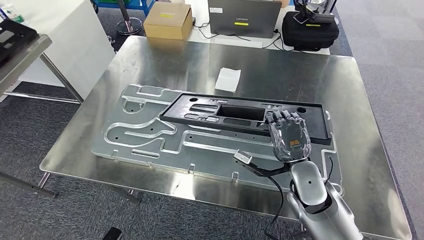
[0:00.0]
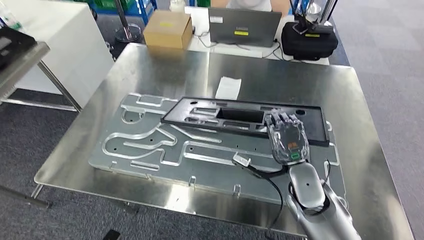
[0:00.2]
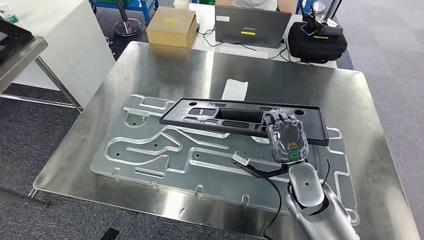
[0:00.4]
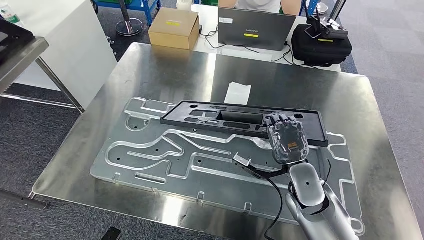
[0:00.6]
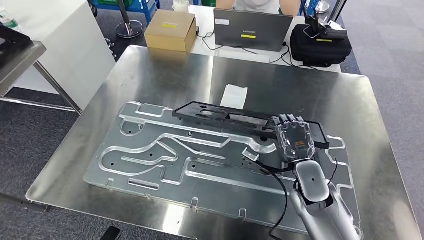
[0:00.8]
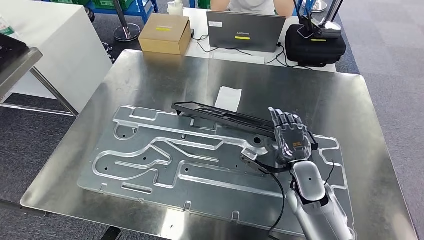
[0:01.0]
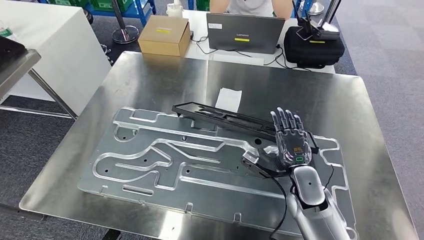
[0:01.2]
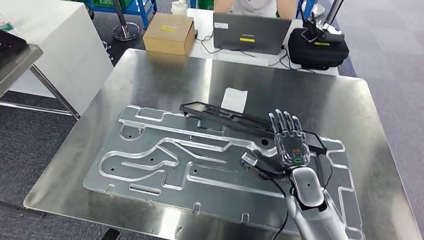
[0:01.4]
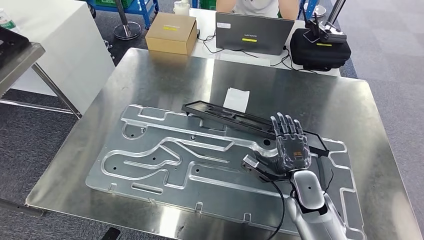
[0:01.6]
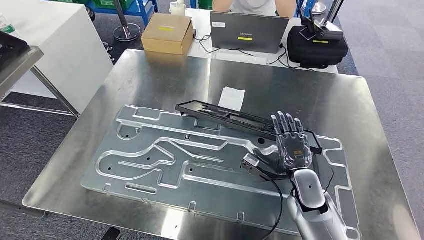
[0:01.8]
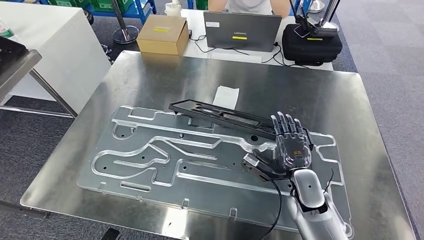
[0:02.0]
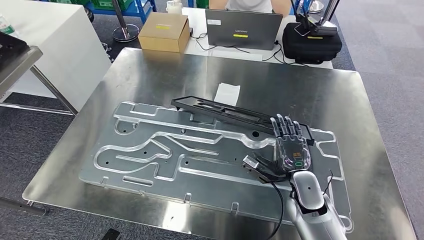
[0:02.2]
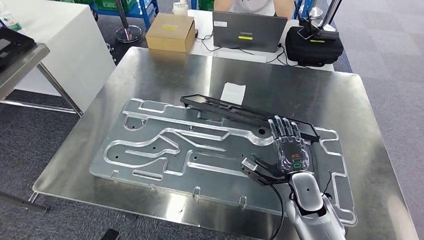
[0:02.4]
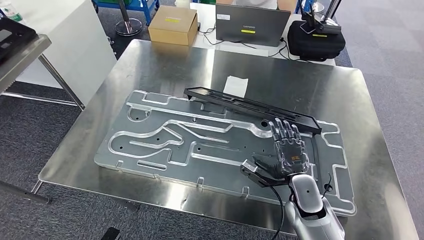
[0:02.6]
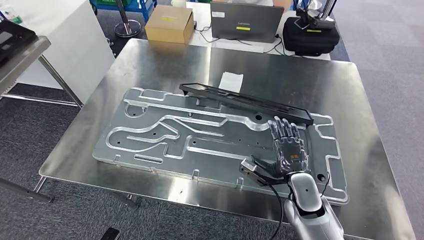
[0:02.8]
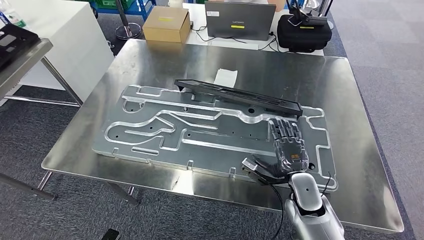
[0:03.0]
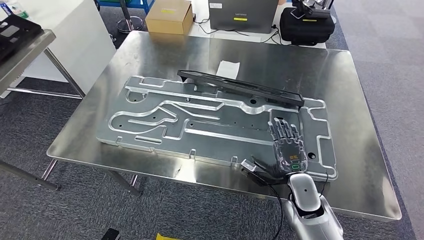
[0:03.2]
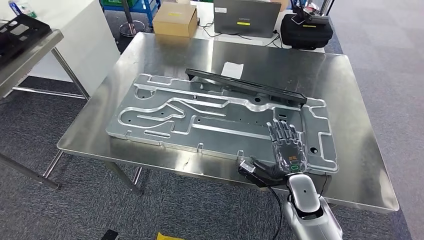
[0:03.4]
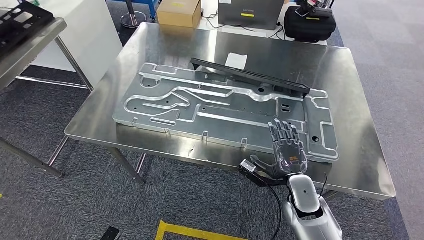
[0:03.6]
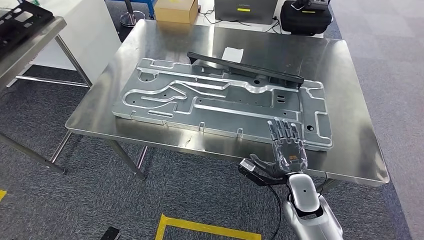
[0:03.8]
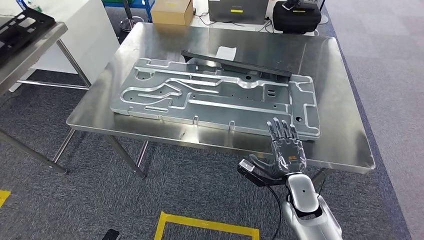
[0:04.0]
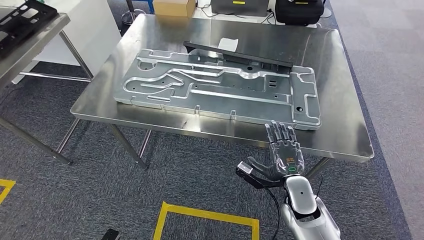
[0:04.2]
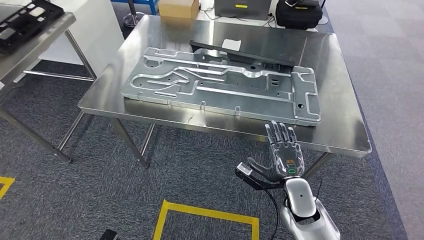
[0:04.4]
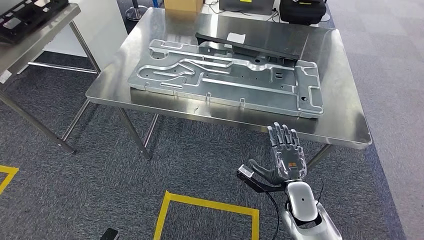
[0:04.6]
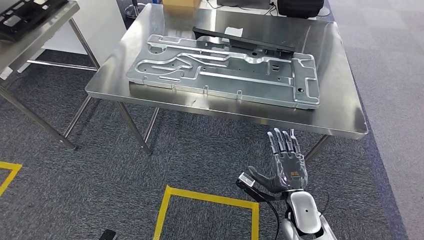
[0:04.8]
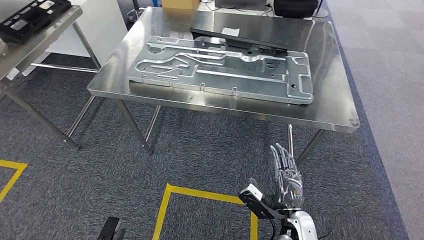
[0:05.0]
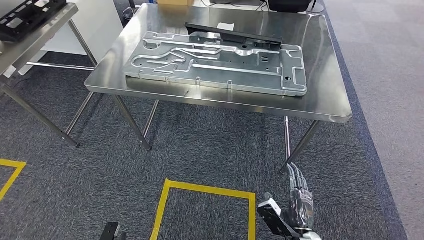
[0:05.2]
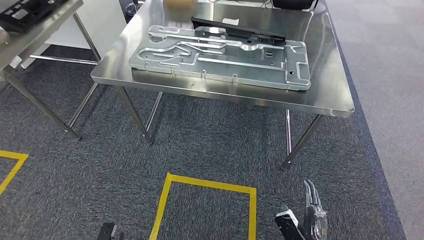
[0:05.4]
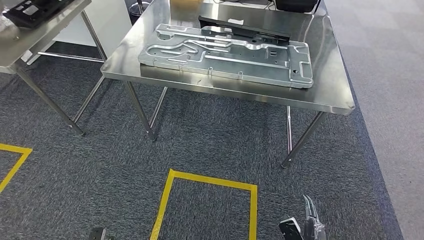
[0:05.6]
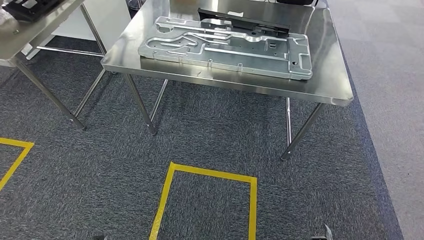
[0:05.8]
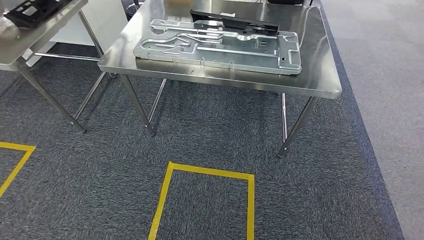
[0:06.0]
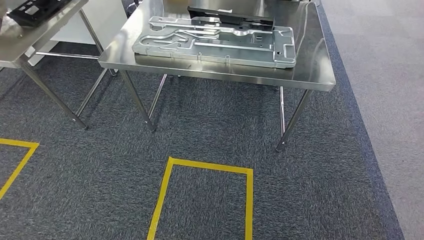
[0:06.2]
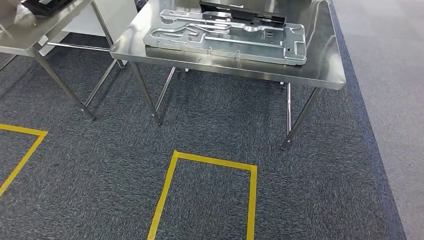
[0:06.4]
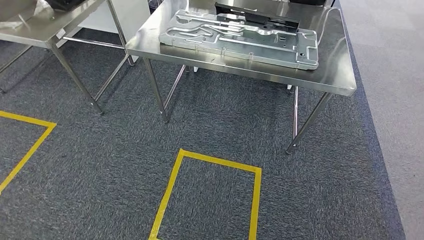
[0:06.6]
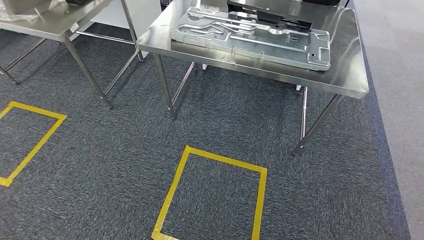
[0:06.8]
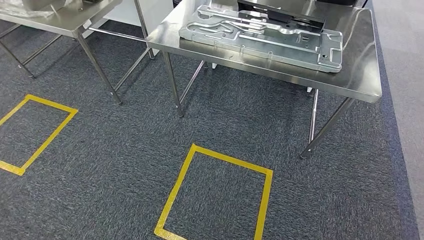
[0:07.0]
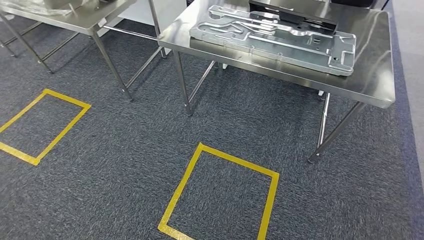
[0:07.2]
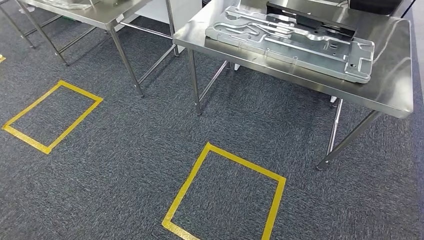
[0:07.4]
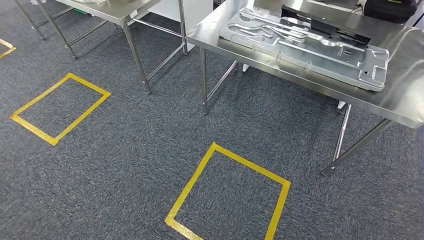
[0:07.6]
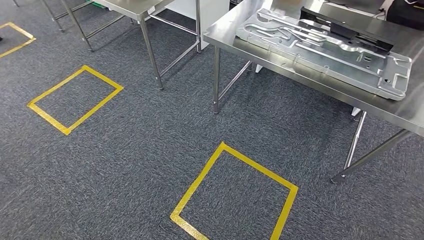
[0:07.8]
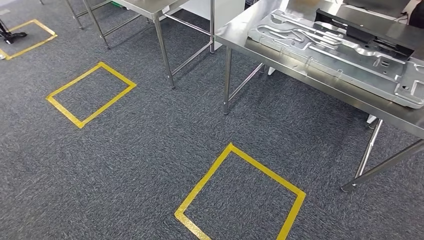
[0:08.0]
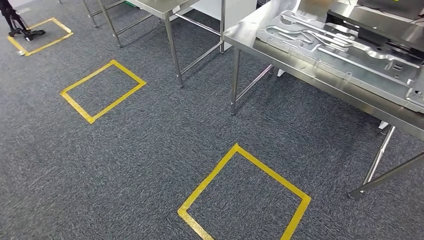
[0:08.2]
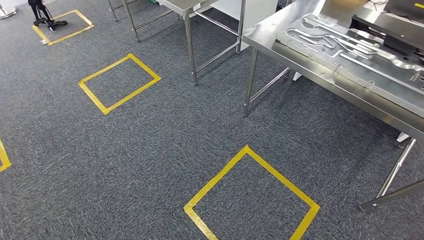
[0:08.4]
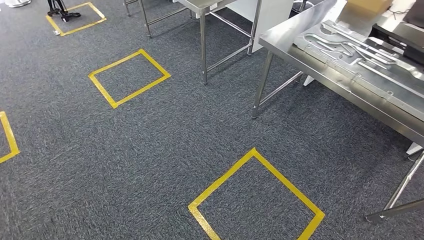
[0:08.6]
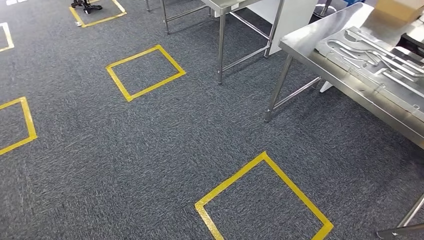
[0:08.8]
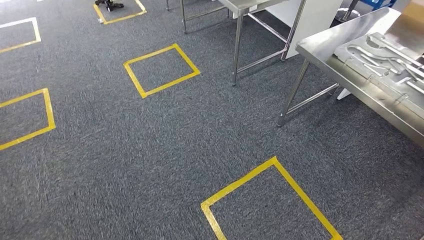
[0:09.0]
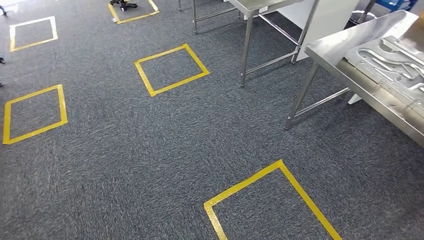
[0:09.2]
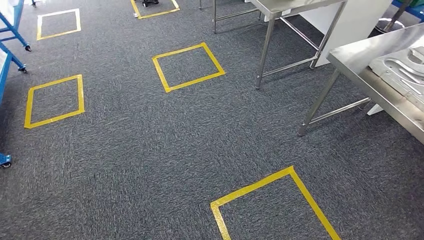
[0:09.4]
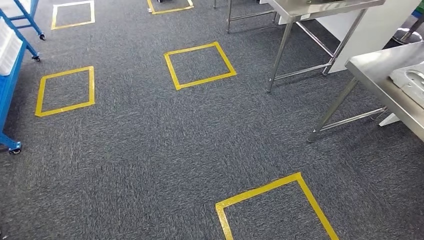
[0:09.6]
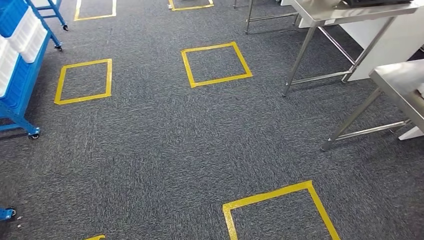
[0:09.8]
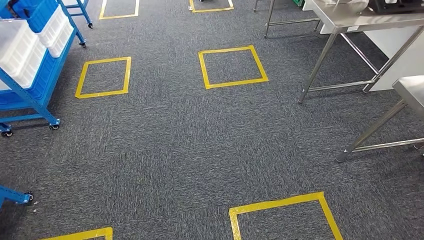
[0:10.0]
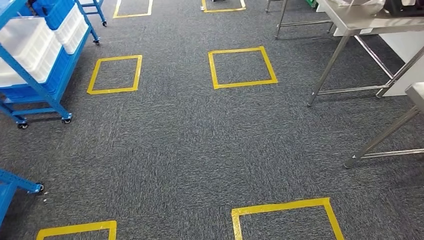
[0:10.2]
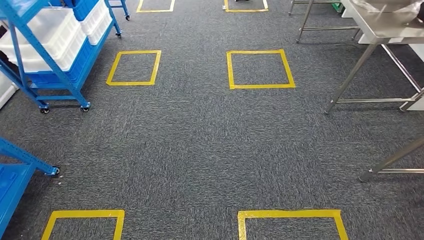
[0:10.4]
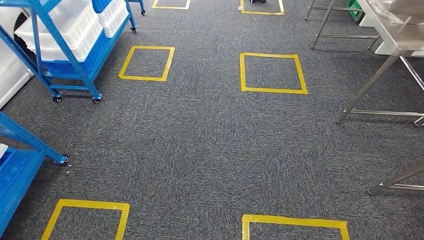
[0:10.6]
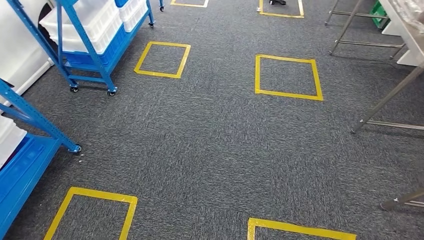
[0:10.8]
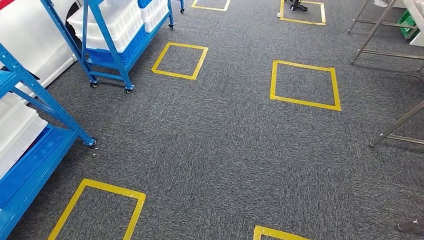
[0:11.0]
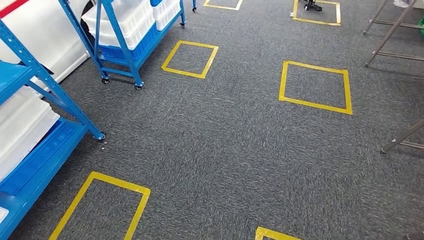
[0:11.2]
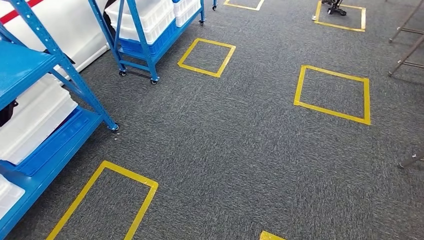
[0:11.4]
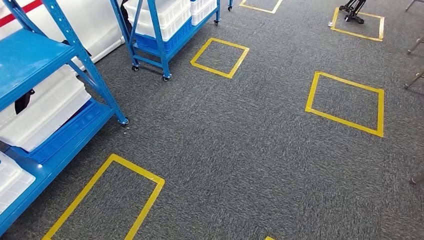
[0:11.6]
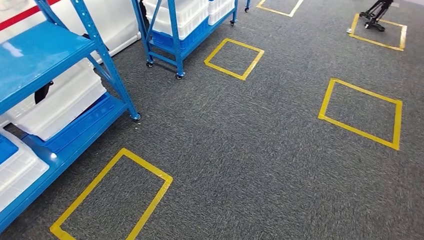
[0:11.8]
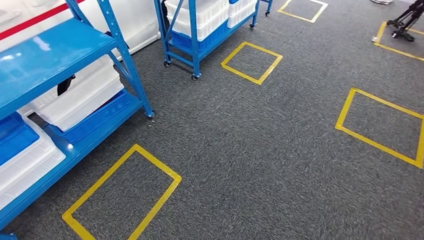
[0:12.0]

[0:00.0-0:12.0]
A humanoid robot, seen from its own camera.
Step, 0:00.0 to 0:05.4: Insert the large material into the corresponding hole on the workbench.

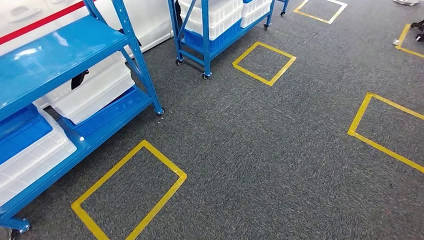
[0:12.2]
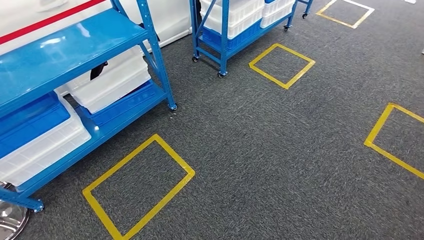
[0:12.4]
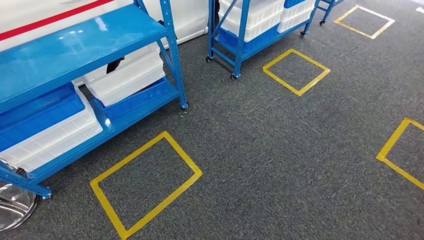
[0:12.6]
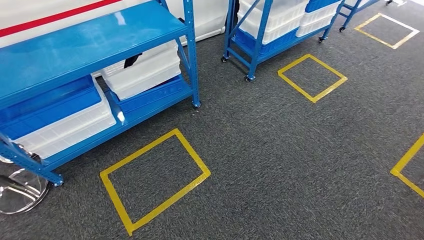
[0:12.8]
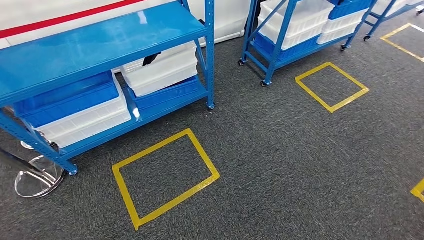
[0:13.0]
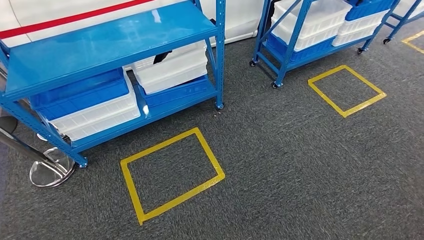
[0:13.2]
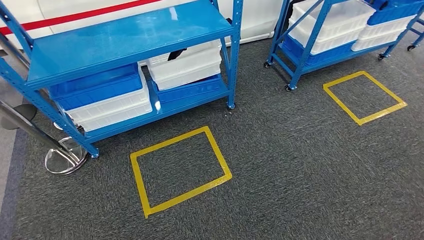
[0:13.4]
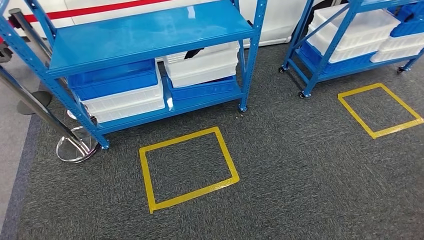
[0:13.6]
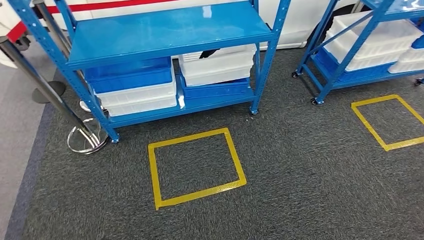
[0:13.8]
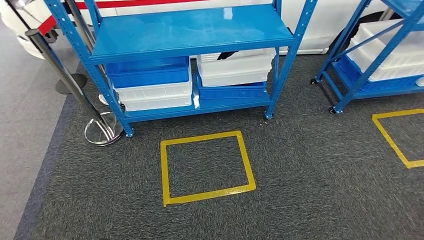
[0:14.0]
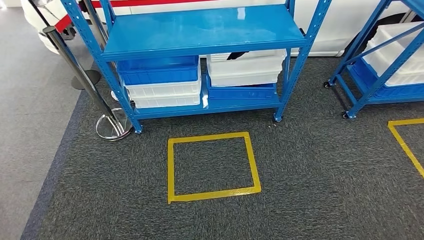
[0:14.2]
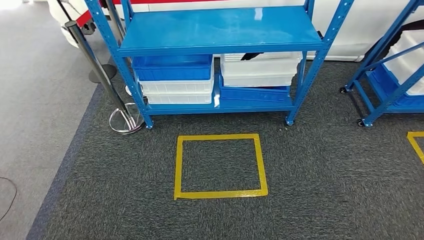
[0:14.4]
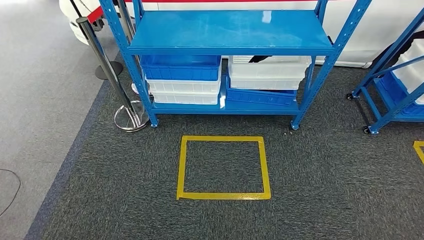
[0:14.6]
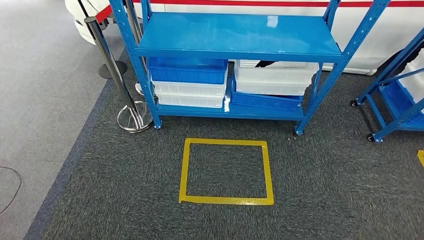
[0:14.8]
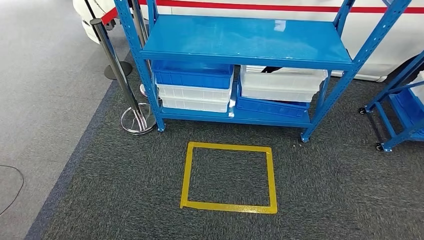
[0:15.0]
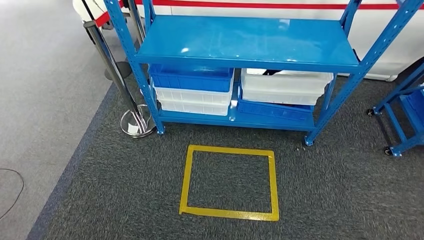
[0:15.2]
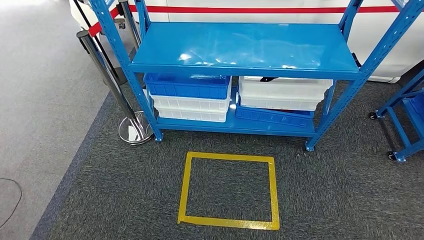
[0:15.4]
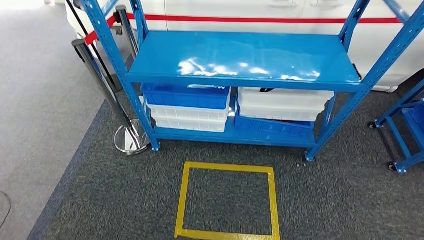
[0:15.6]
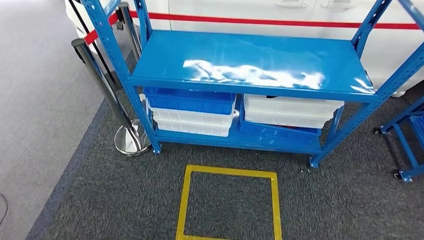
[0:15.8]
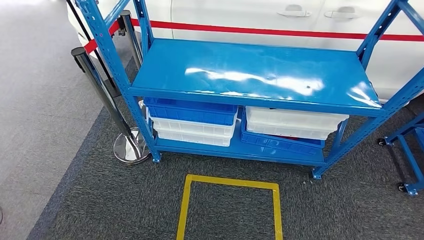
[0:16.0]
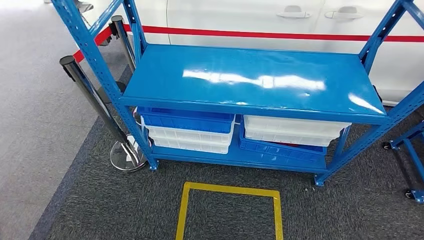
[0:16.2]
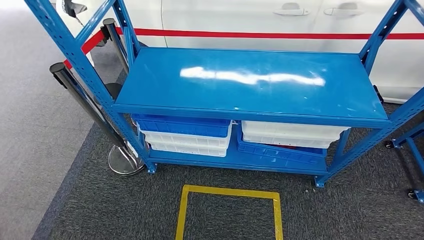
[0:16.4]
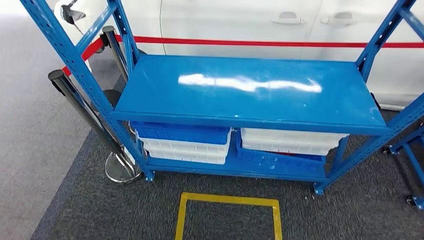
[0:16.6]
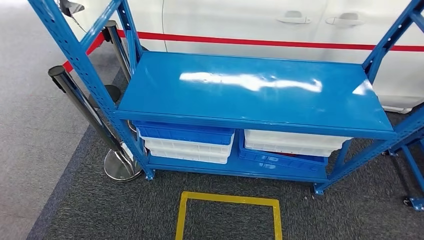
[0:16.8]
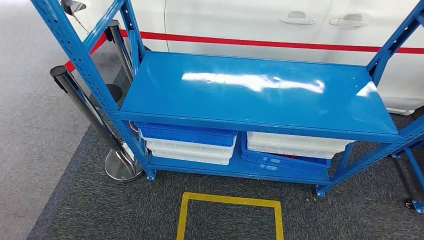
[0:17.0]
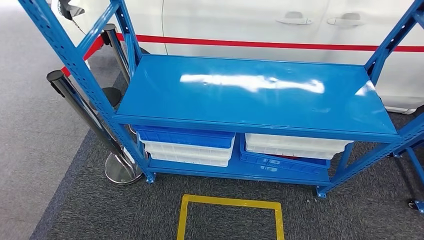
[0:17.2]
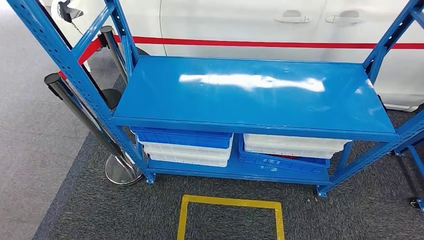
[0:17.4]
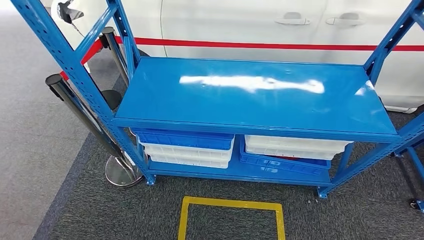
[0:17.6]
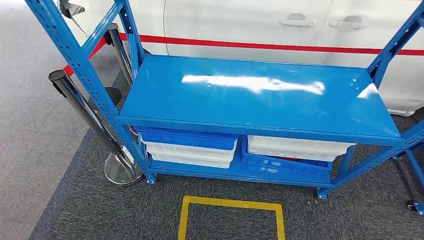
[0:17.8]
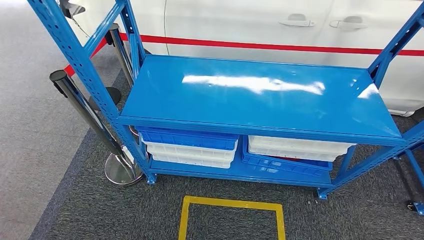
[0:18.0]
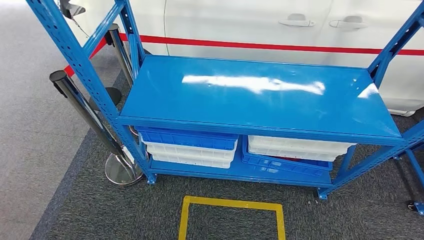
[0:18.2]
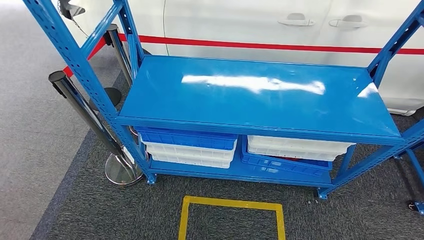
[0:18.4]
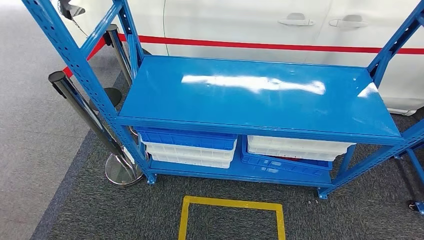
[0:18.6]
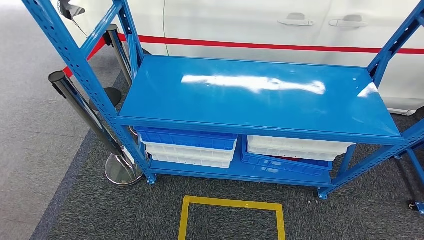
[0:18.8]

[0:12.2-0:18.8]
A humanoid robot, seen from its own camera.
Step, 0:12.2 to 0:18.8: Move to the initial position of the shelf.
0:17.2 to 0:18.8: The hands move only a little.
